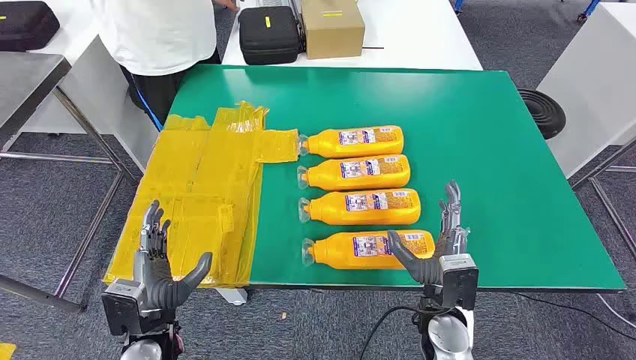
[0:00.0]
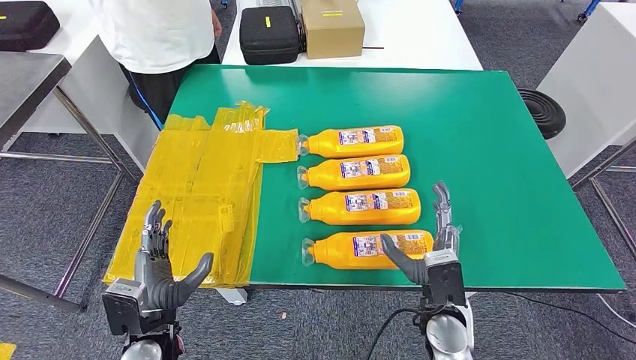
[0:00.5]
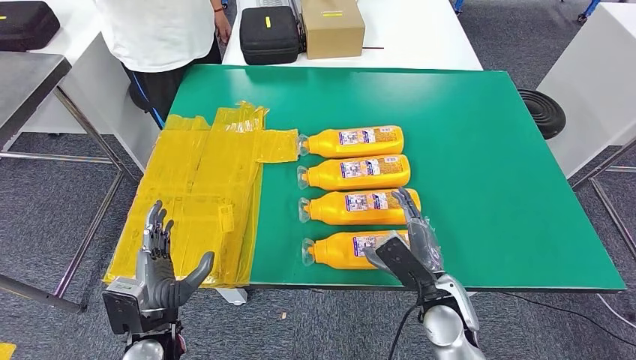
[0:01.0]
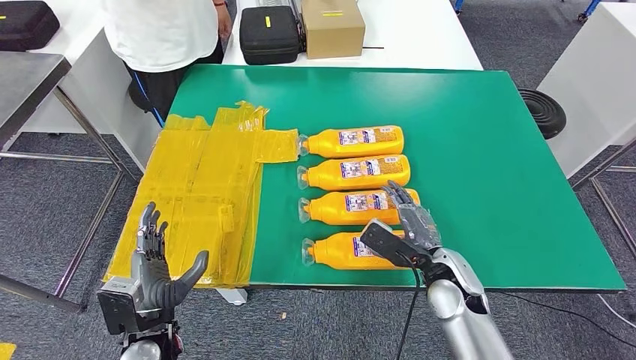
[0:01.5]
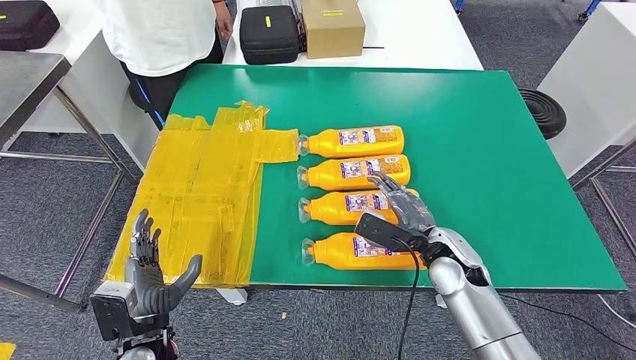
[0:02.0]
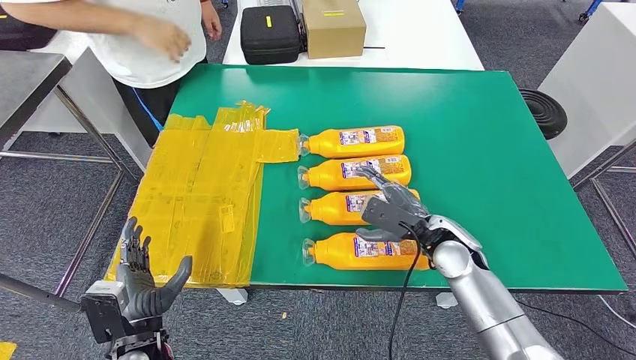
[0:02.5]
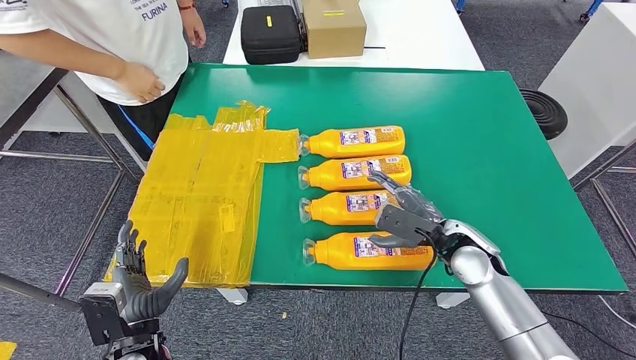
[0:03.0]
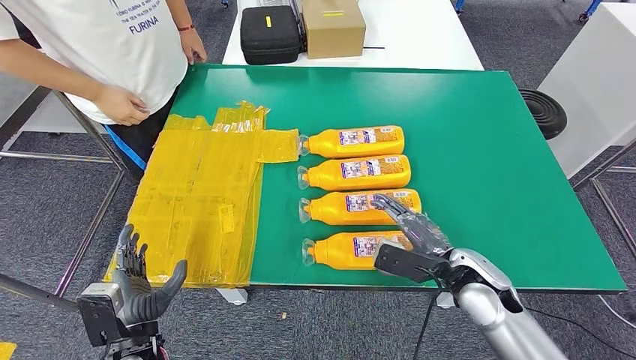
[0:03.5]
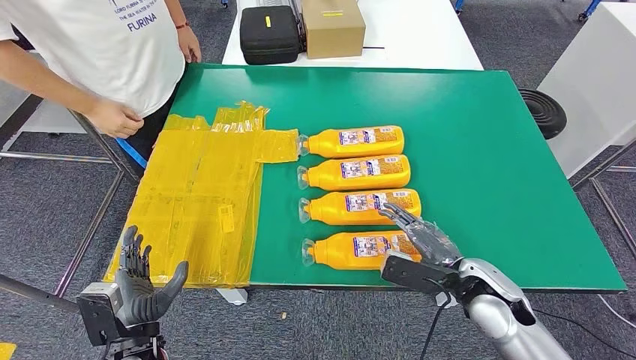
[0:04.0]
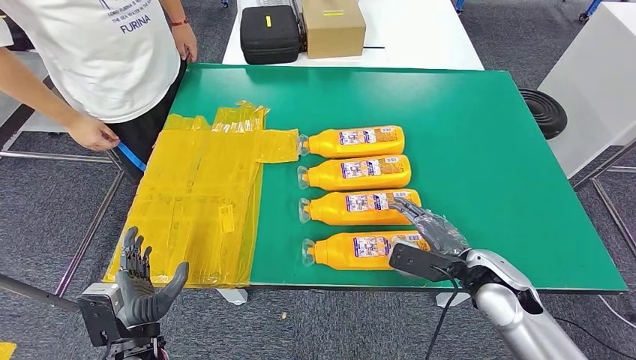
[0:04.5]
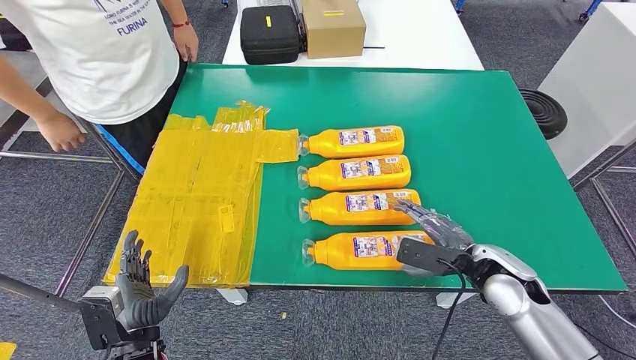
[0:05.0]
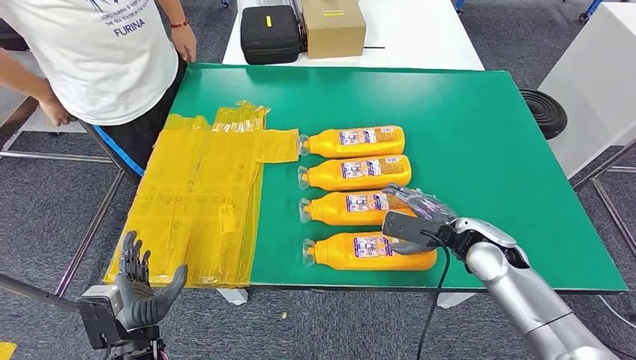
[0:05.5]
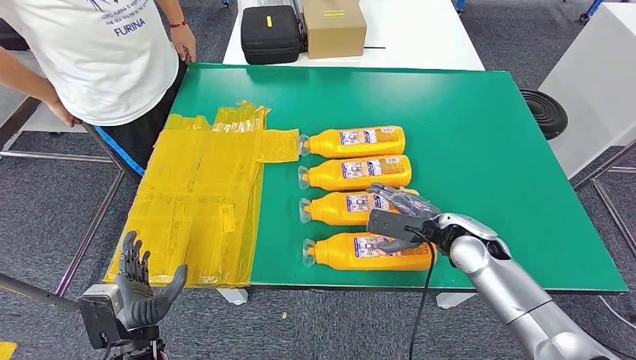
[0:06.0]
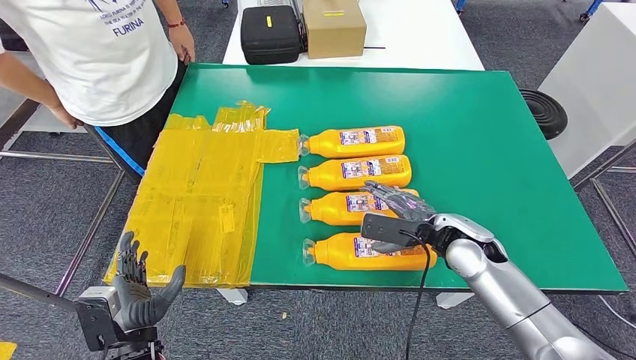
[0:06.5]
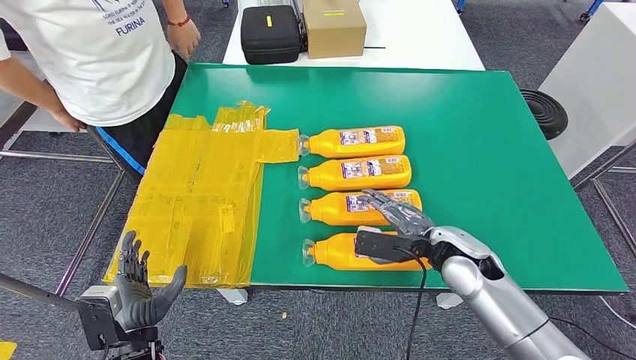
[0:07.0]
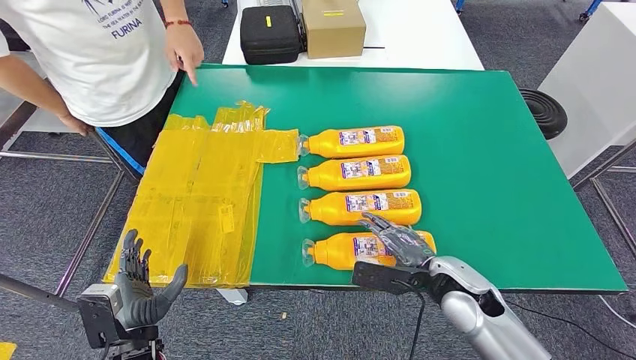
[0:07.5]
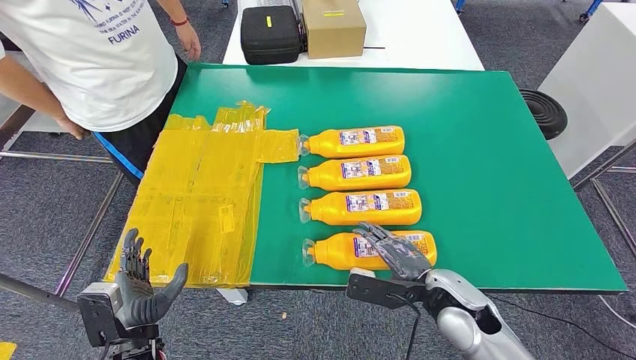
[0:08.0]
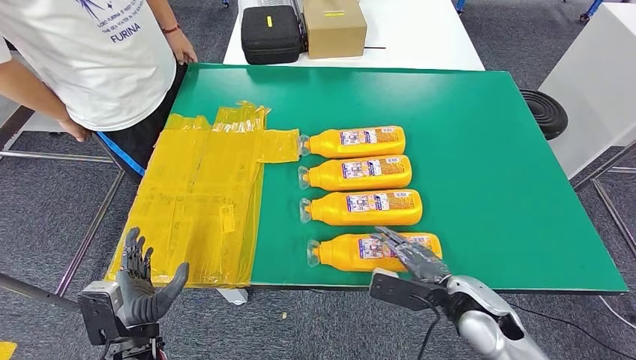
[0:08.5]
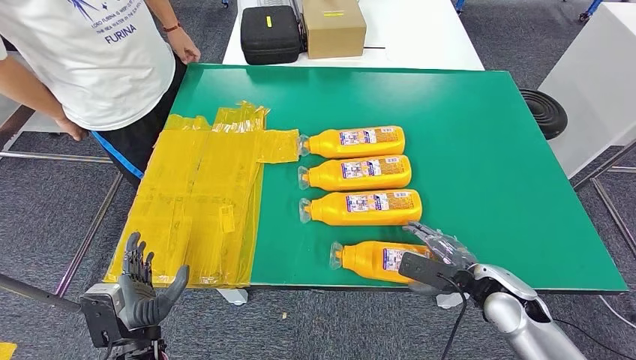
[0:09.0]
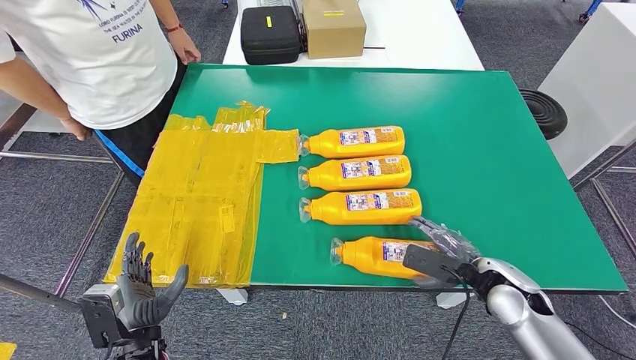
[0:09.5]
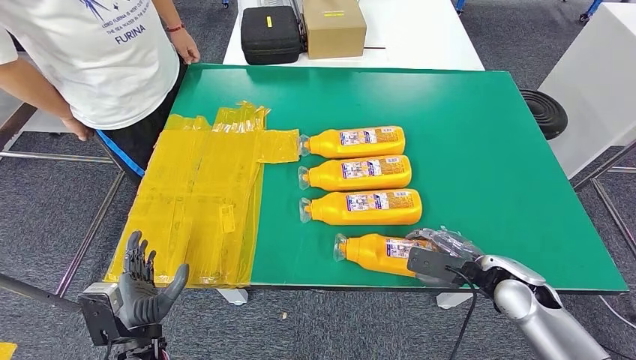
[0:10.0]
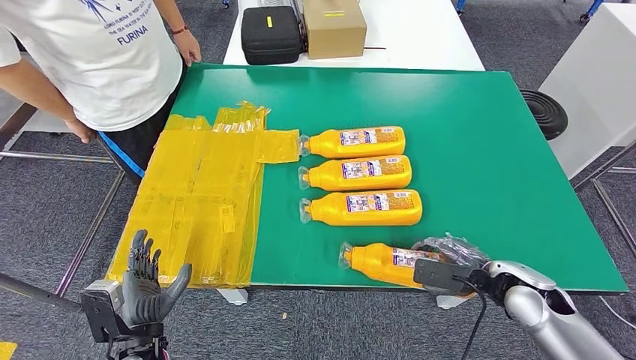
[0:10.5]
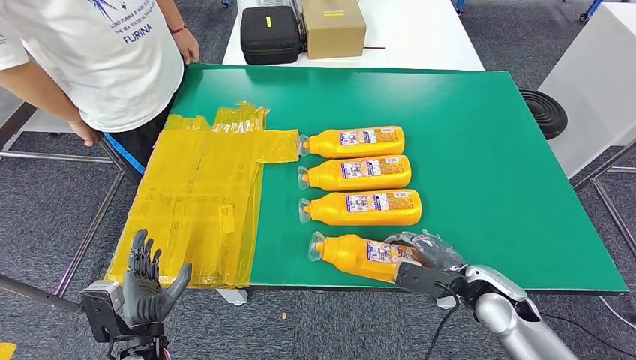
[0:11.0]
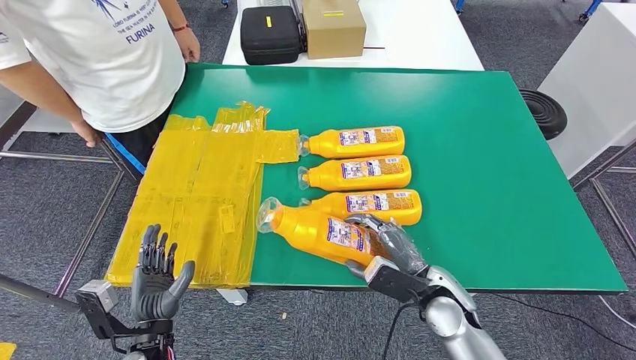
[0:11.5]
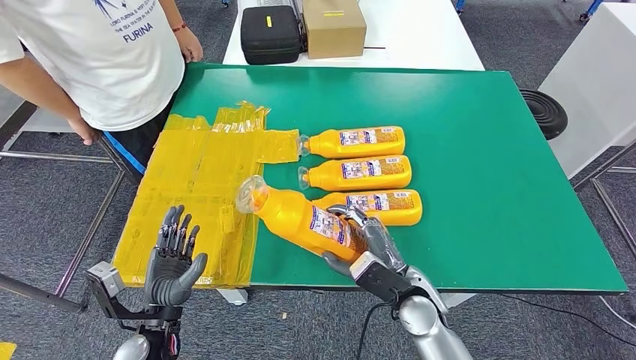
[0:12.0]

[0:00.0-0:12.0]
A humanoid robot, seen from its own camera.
0:02.0 to 0:04.0: The right hand heads backward, covering approximately 5 cm.
0:04.0 to 0:06.0: The right hand travels forward by roughly 10 cm.
0:06.0 to 0:08.0: The right hand goes roughly 10 cm backward.
0:08.0 to 0:10.0: The right hand is displaced to the right by approximately 10 cm.
0:10.0 to 0:12.0: The right hand shifts roughly 15 cm to the left.

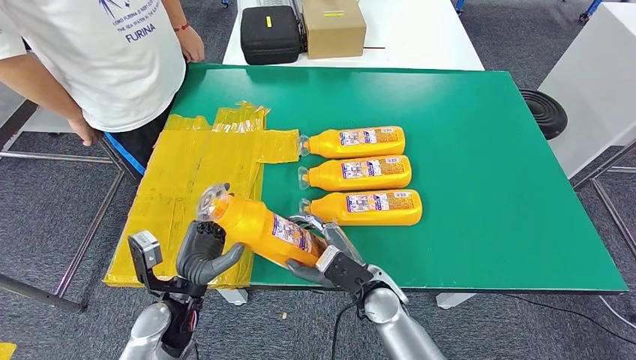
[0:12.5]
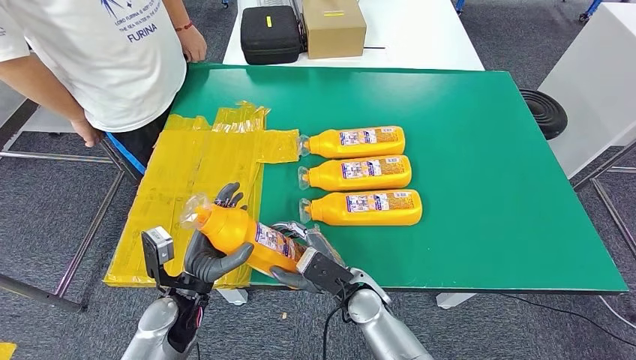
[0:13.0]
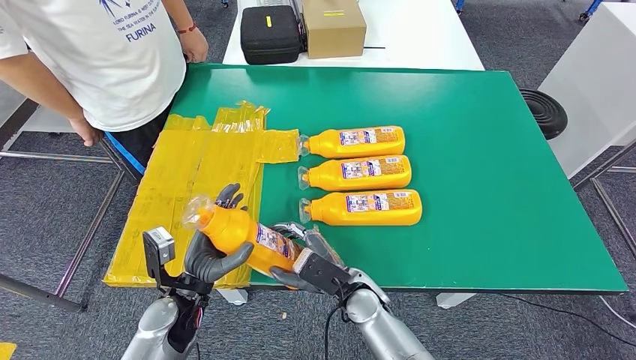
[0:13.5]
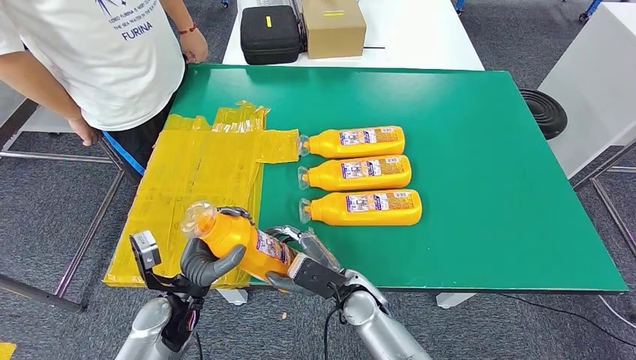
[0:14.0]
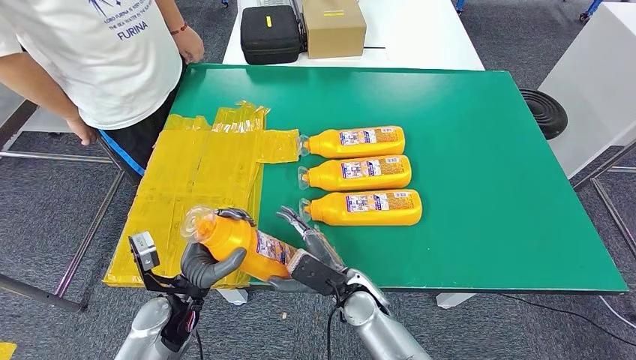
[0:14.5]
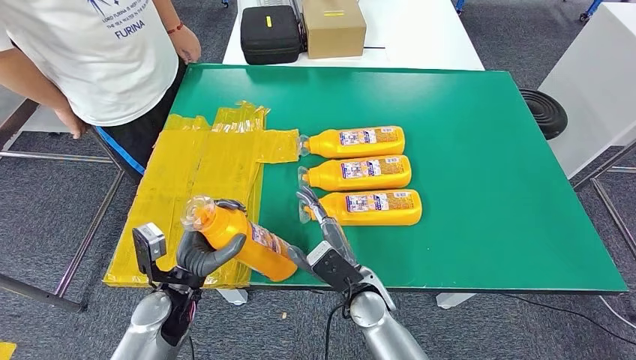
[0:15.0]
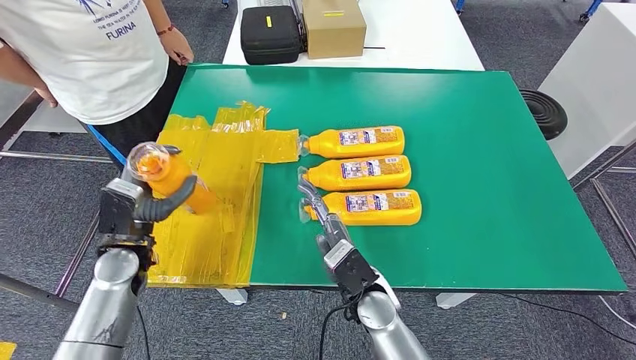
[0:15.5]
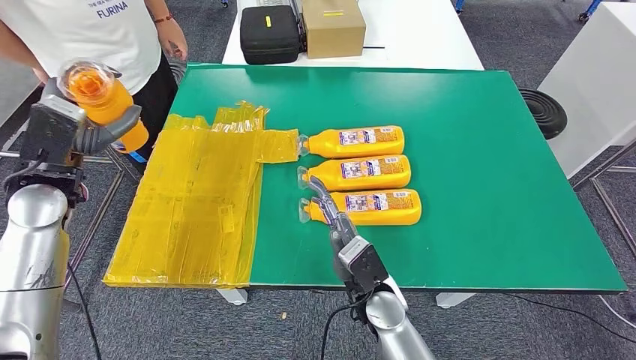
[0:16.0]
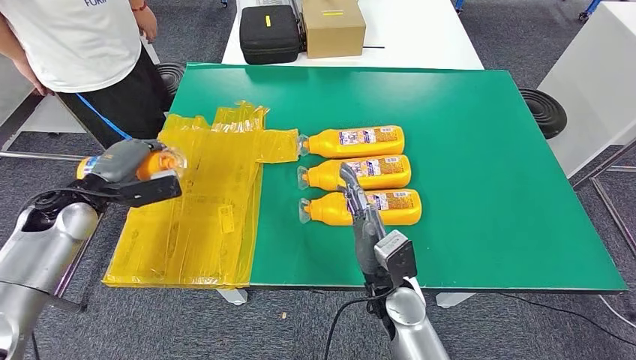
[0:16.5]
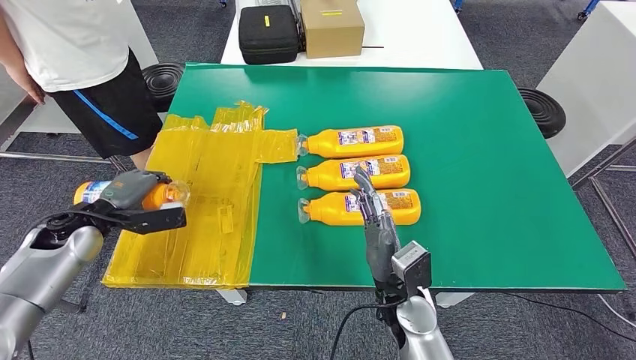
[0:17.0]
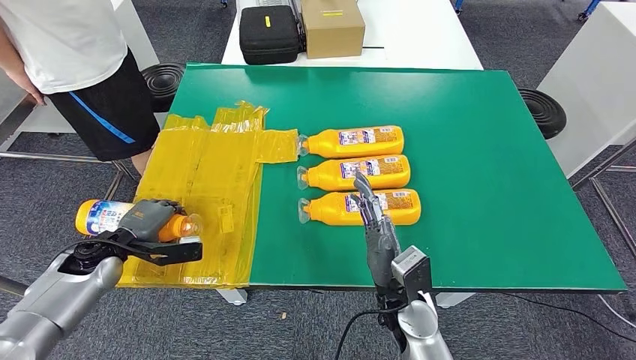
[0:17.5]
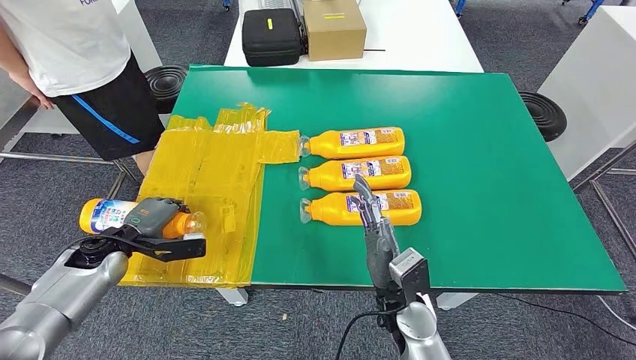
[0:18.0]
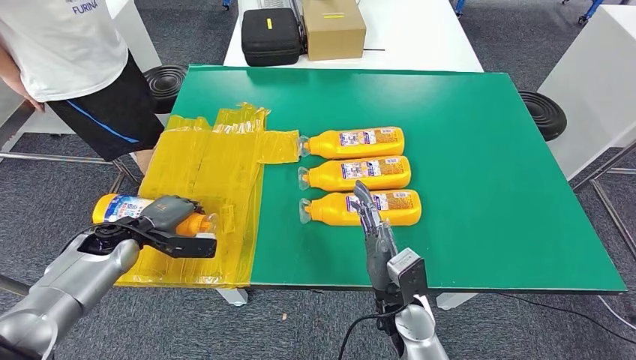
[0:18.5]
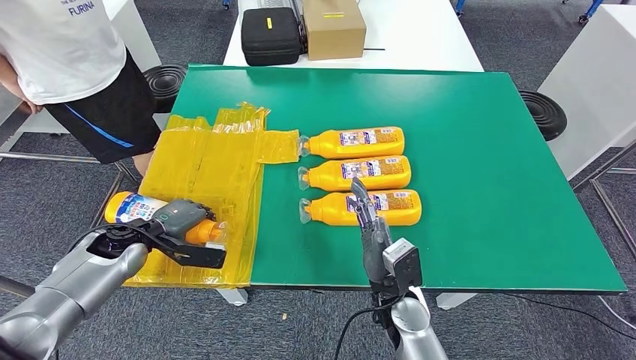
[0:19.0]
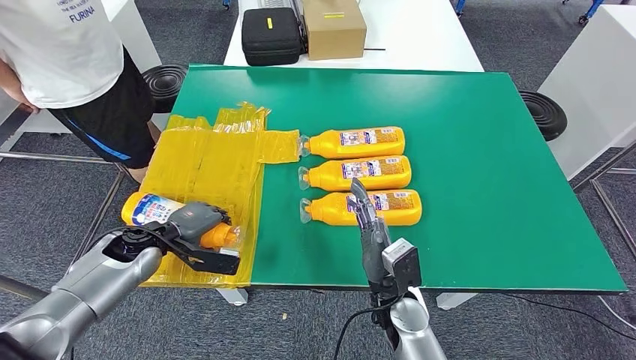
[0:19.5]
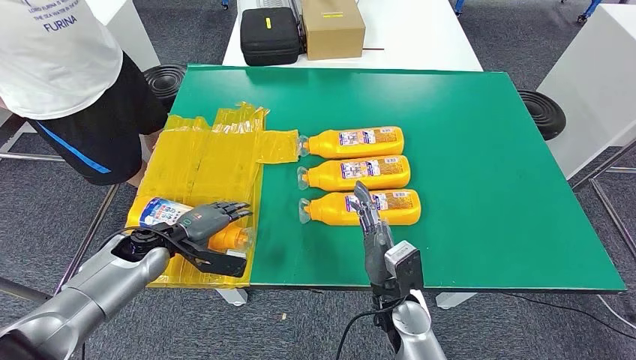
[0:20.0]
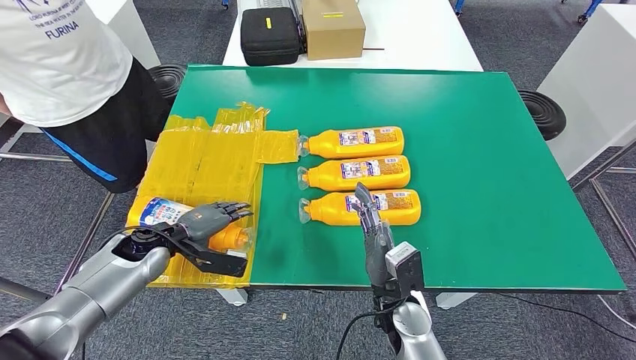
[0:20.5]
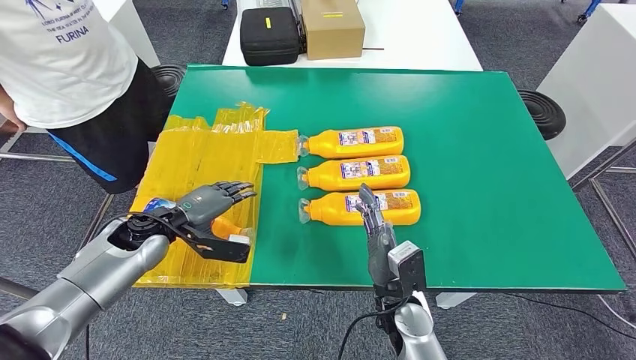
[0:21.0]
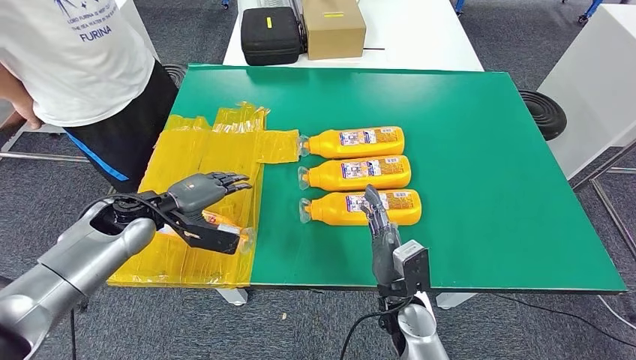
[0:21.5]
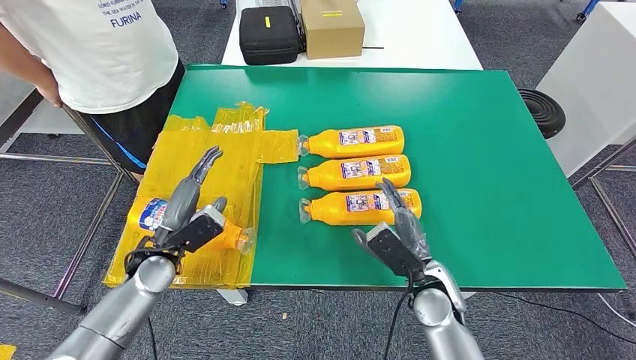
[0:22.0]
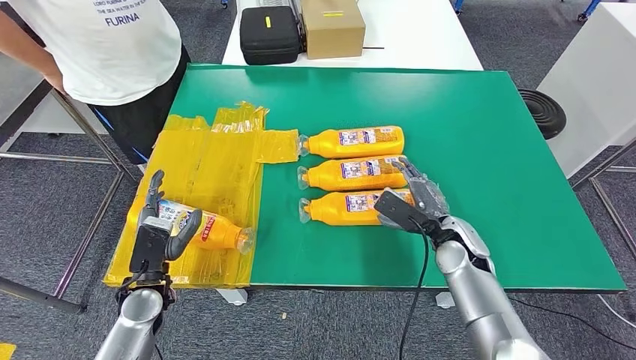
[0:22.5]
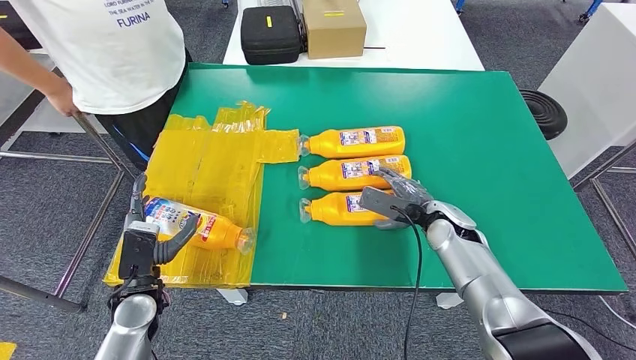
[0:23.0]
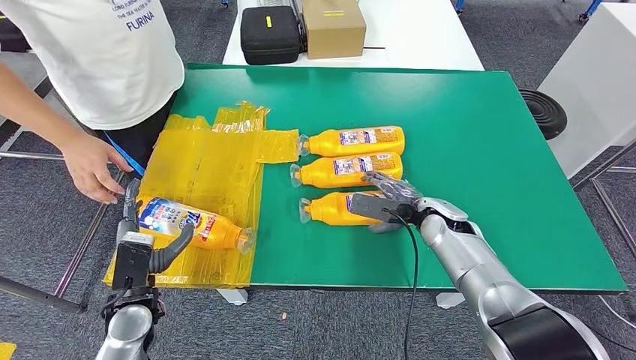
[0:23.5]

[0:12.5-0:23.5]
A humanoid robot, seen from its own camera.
Step, 0:13.5 to 0:18.0: Flip the fast-moving consumer goods bottle to the front side.
0:12.5 to 0:14.5: The hands make only small movements.
0:18.0 to 0:20.0: The left hand goes approximately 10 cm to the right.
0:20.0 to 0:21.5: The left hand goes about 10 cm upward.
